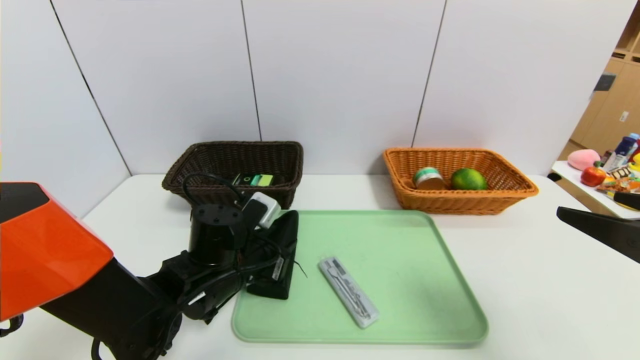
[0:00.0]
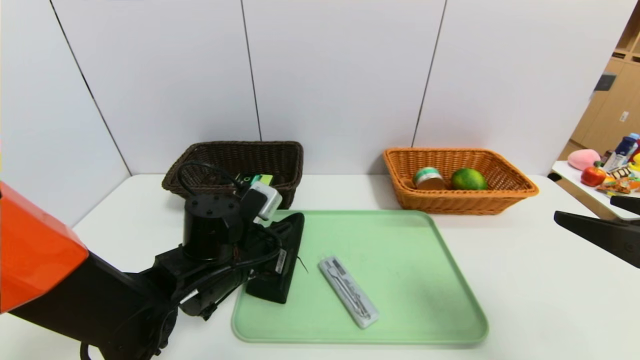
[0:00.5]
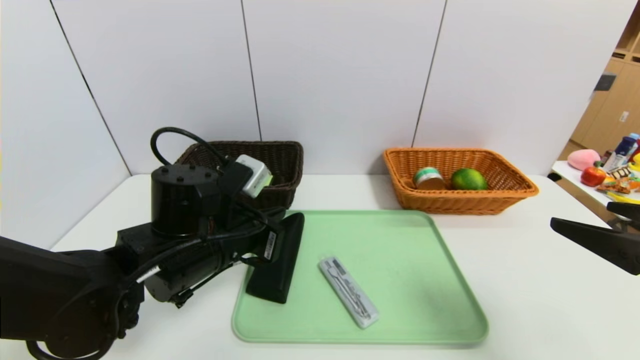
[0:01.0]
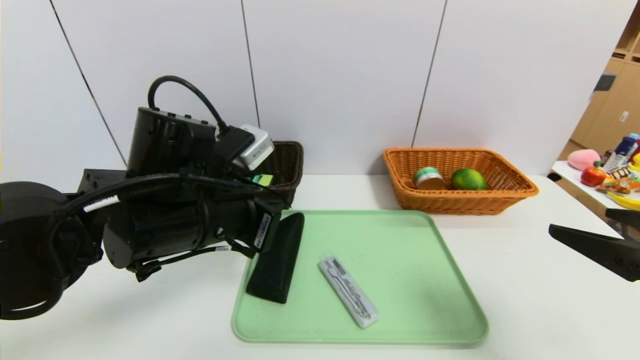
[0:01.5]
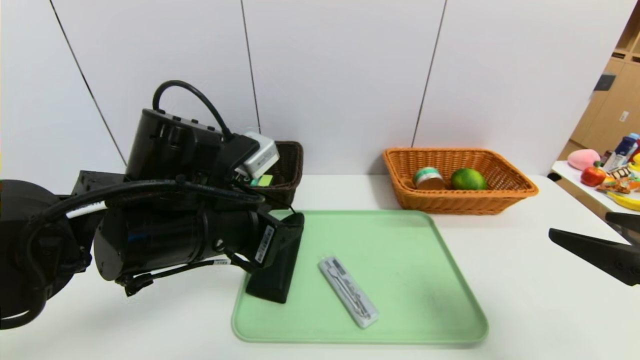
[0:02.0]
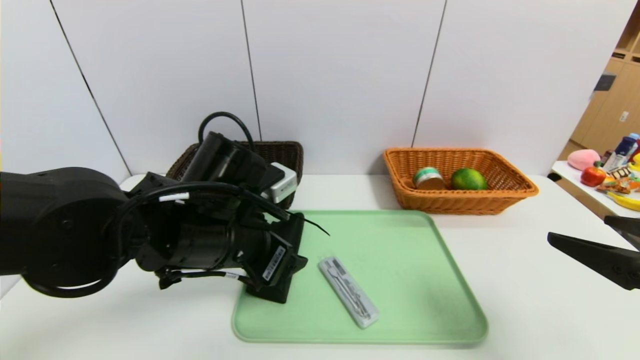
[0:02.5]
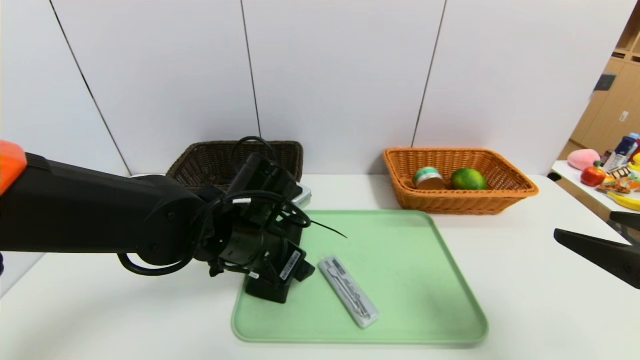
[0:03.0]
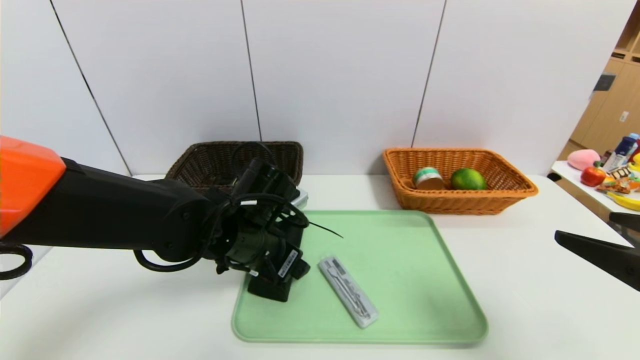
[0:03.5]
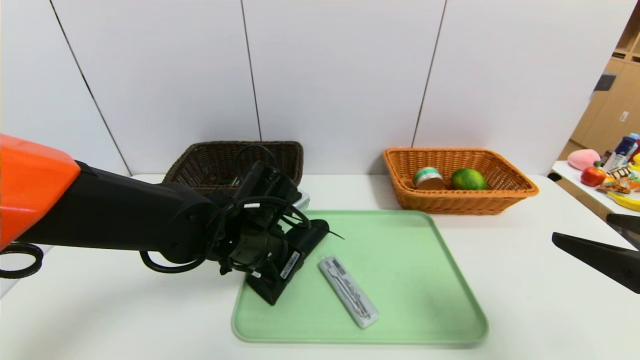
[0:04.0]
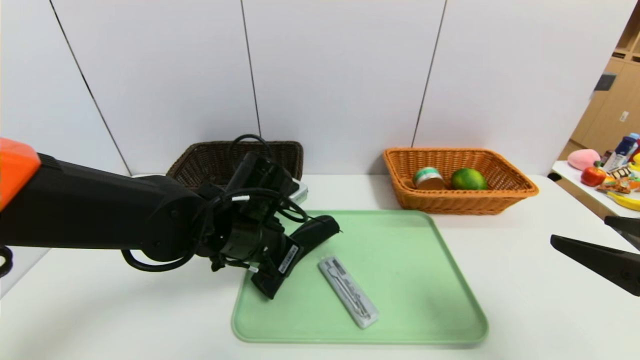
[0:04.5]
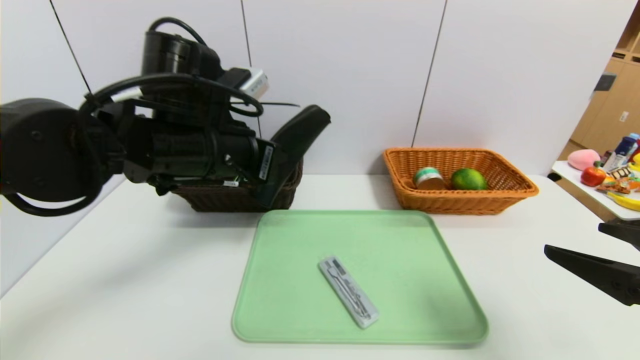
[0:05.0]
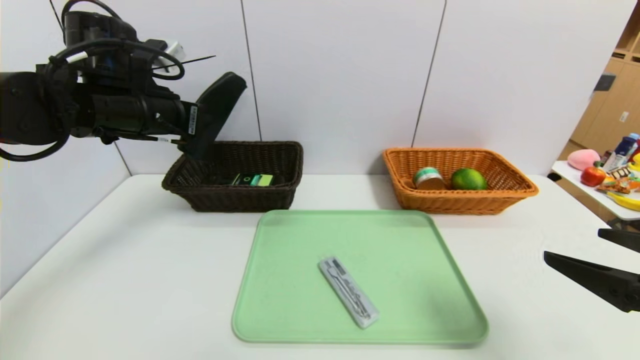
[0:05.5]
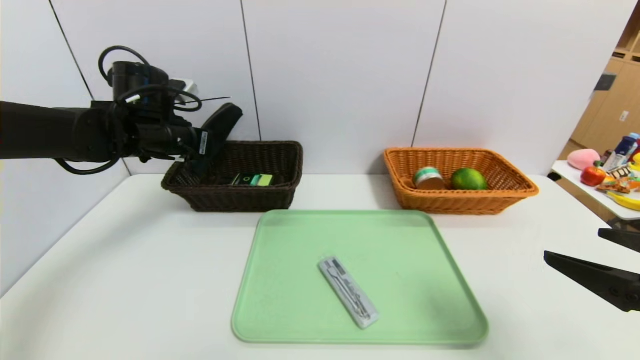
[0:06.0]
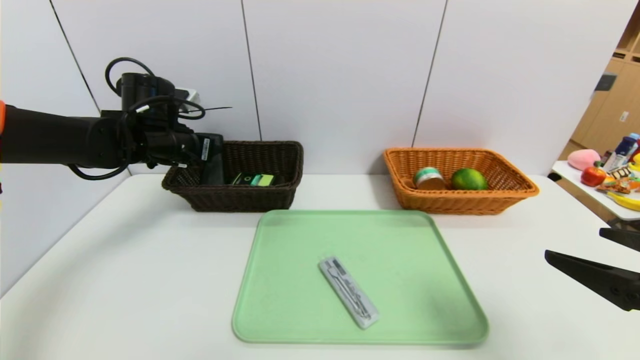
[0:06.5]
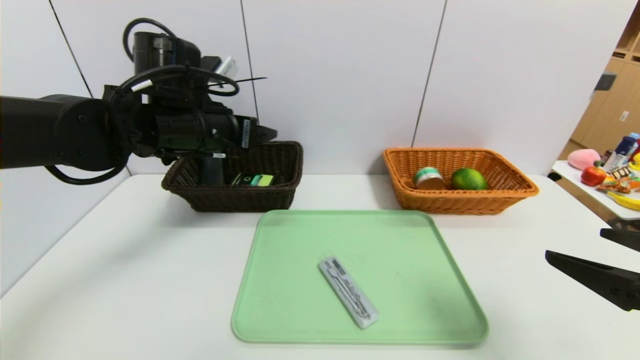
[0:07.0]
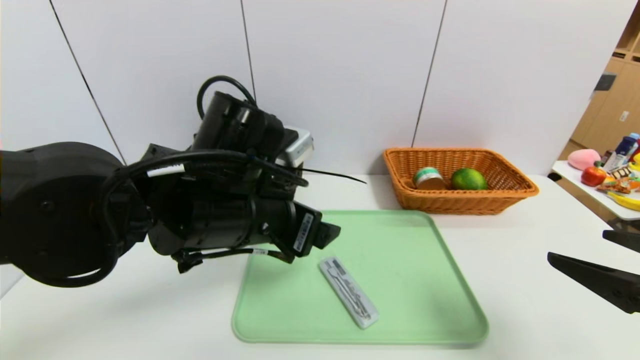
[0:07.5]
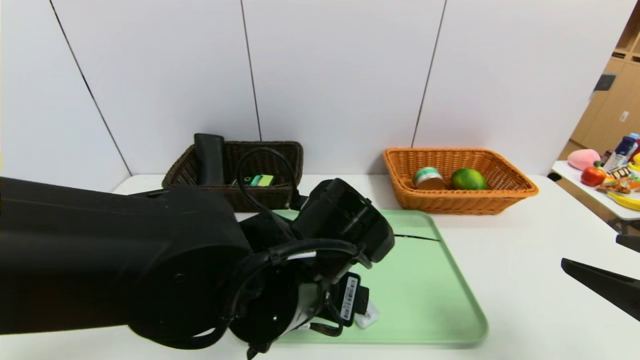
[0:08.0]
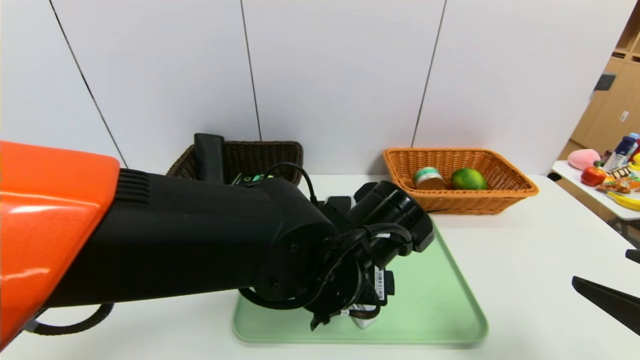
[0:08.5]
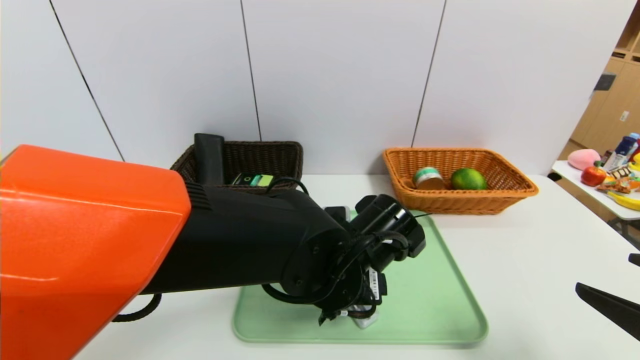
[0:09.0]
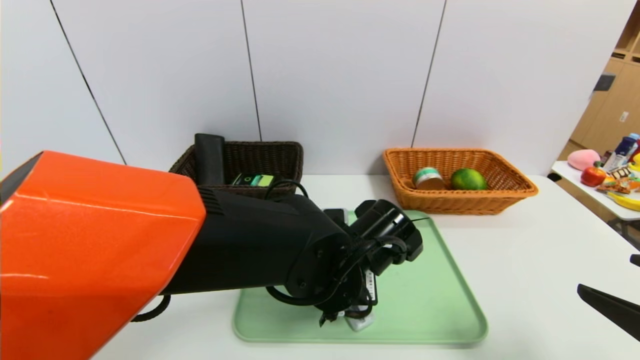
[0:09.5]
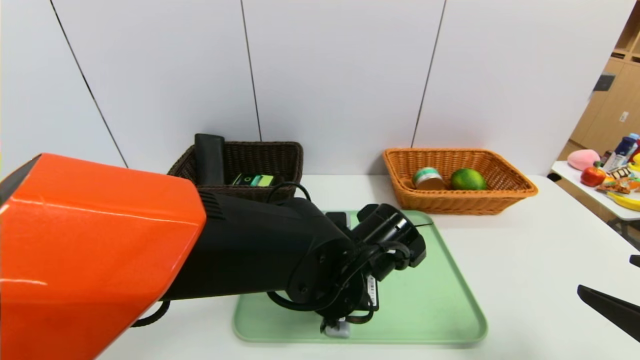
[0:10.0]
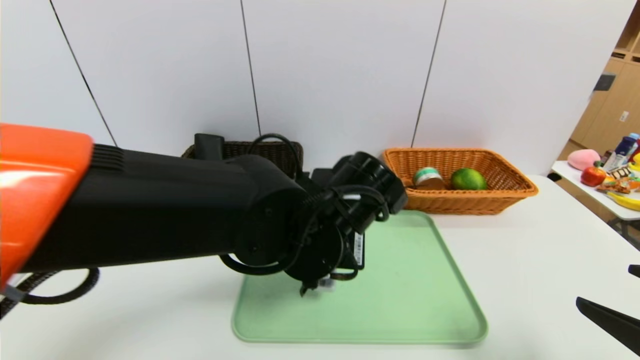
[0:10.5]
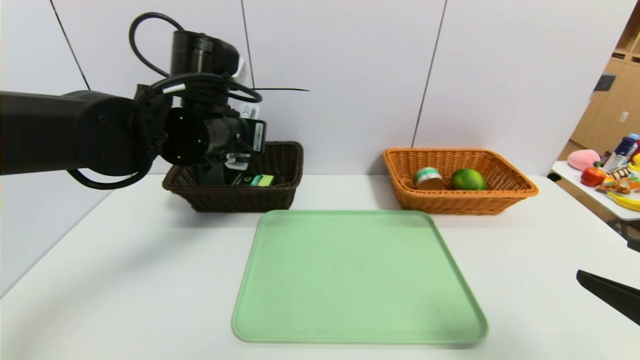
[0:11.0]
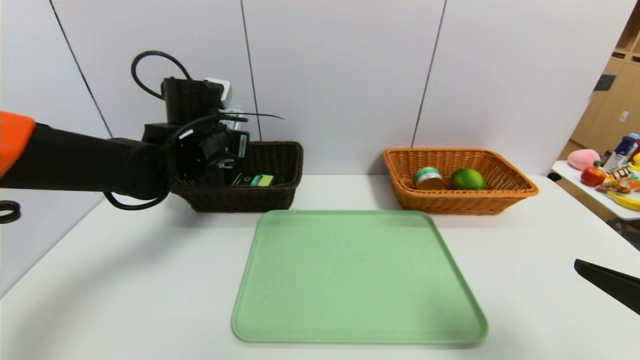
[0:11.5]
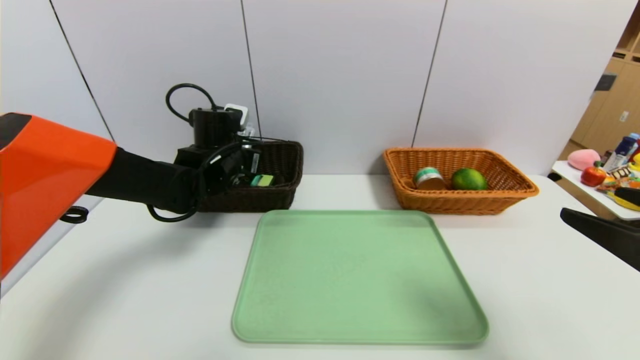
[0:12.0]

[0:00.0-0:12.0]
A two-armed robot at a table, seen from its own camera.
Task of the whole recording: place the food in the right basket with the right gripper, and place the non food items in the left basket with the left gripper.
Step, 0:00.0 to 0:06.5: Grasp the glasses case and put it in the left basket.
0:00.0 to 0:02.0: The left gripper travels upward by some 15 cm, and closes and opens again.
0:02.0 to 0:04.0: The left gripper moves downward and forward, some 10 cm.
0:04.0 to 0:06.0: The left gripper shifts roughly 20 cm to the left, forward and upward, and closes its fingers.
0:06.0 to 0:08.0: The left gripper moves to the right and backward, about 30 cm, and opens up.
0:08.0 to 0:10.0: The left gripper heads downward, covering about 5 cm, and closes up.
0:10.0 to 0:12.0: The left gripper shifts some 25 cm forward and to the left, while the right gripper ends up some 5 cm from where it was.

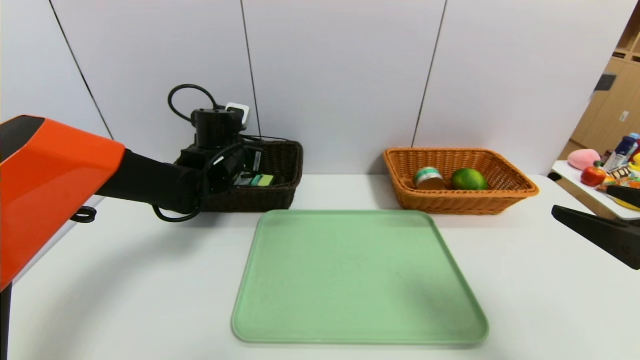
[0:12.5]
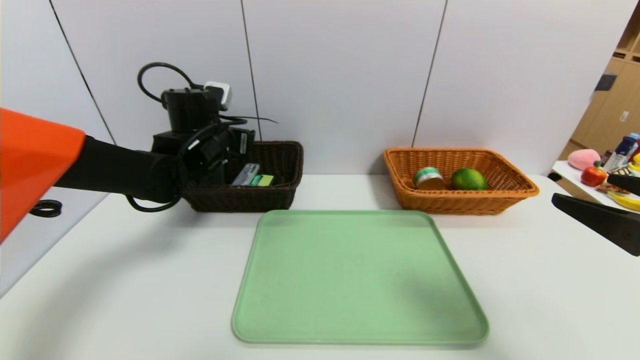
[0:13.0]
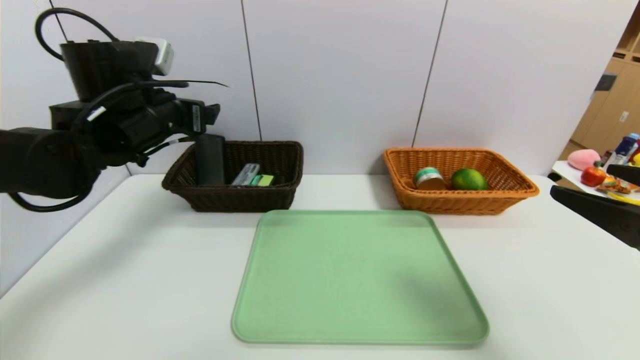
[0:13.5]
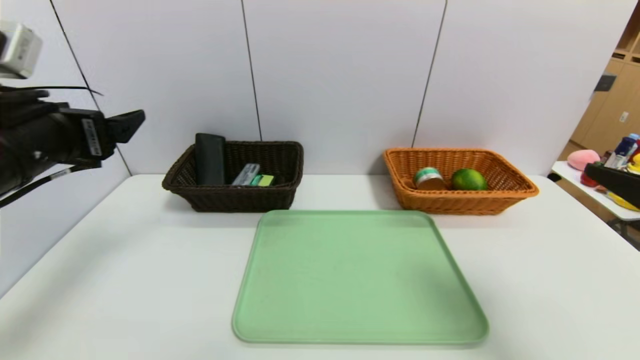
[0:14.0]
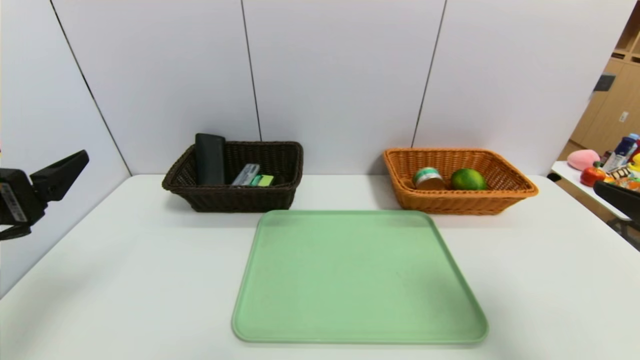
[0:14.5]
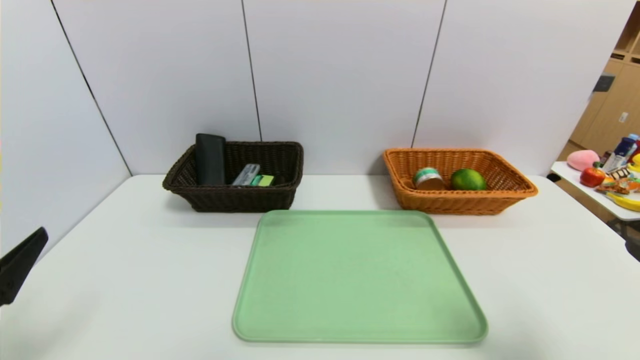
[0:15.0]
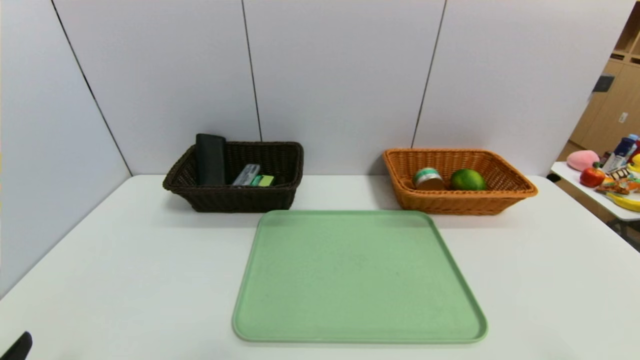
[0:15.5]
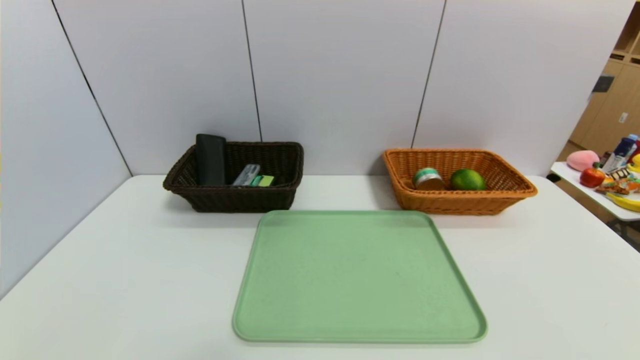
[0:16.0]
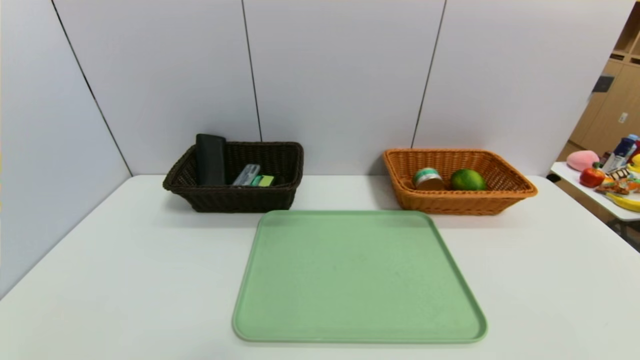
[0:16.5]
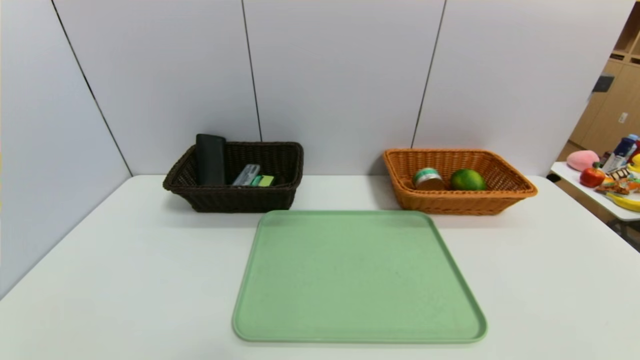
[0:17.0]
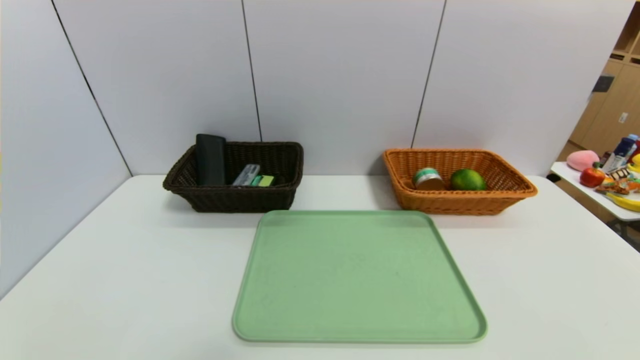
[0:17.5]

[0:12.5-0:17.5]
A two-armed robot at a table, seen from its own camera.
Task of the whole recording: place the food in the right basket with the right gripper, and place the non food items in the left basket with the left gripper.
0:12.5 to 0:15.0: The right gripper shifts some 5 cm backward, while the left gripper shifts about 35 cm backward, and opens.
0:15.0 to 0:17.5: Both grippers move downward and backward, roughly 15 cm.

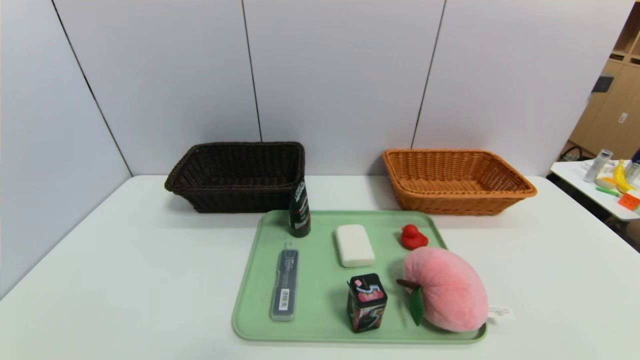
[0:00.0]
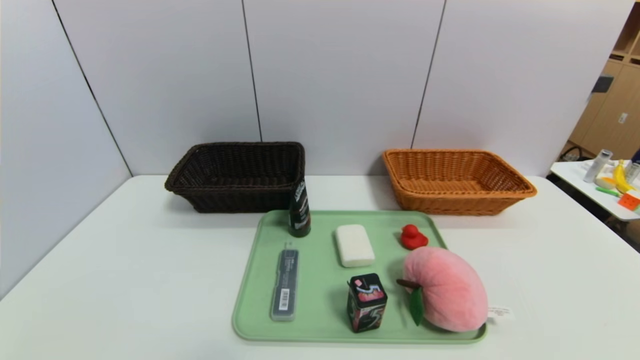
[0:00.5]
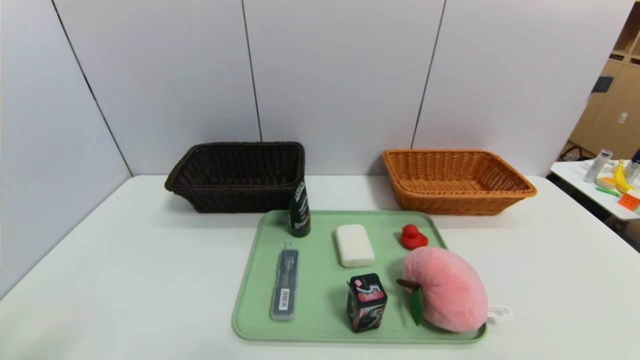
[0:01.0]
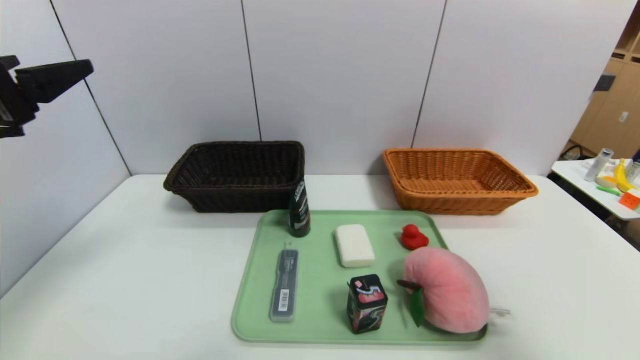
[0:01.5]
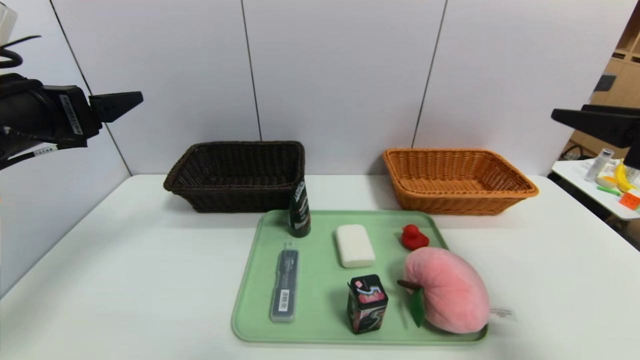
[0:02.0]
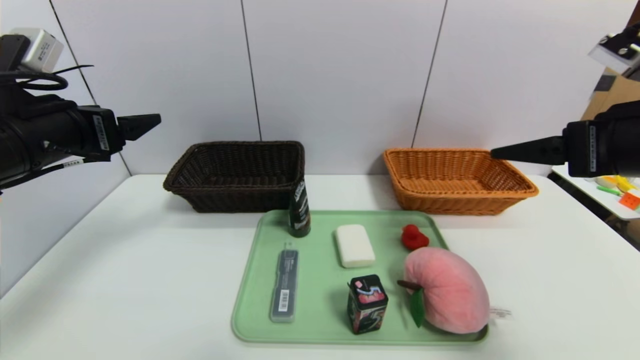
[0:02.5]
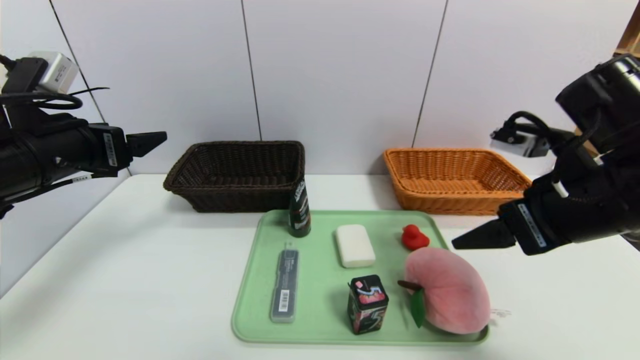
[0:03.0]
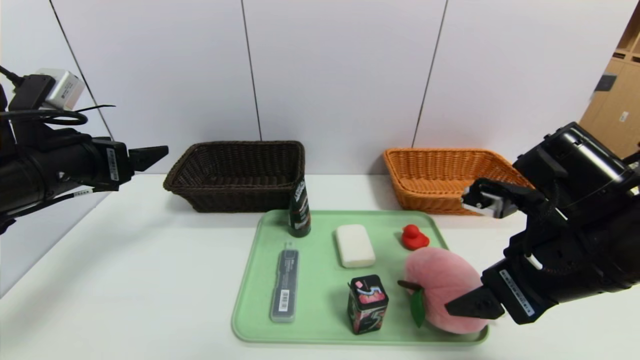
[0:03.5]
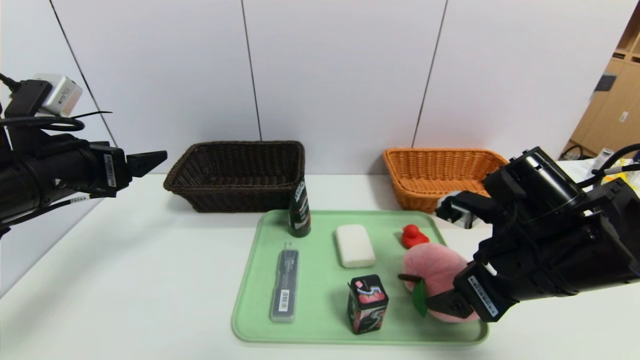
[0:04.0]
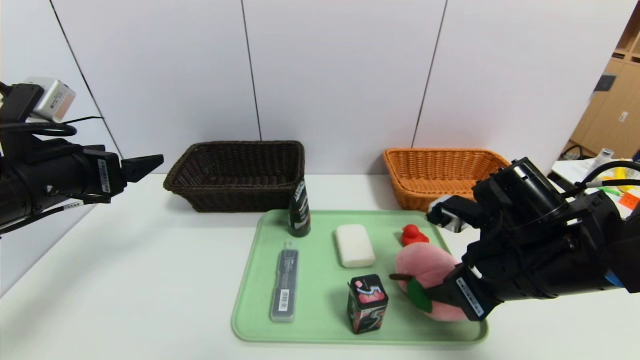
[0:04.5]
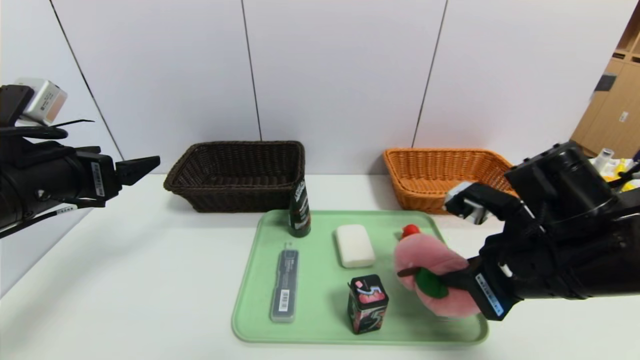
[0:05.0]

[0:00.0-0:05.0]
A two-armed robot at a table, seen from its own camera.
Task of the whole recording: place the food in the right basket with the right gripper, and place the non food items in the left basket with the left gripper.
0:00.0 to 0:02.5: The grippers both shift forward and upward by some 35 cm. The right gripper closes, then reopens.
0:02.5 to 0:05.0: The right gripper is displaced downward and to the left by about 15 cm, and closes its fingers.
